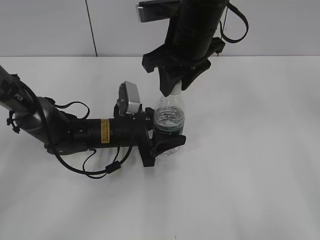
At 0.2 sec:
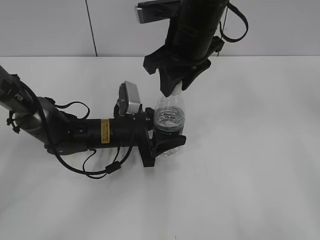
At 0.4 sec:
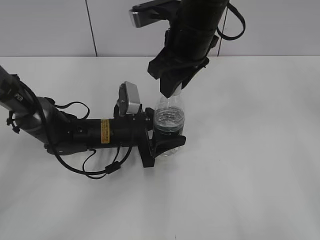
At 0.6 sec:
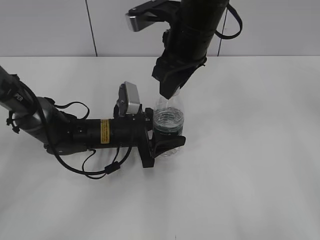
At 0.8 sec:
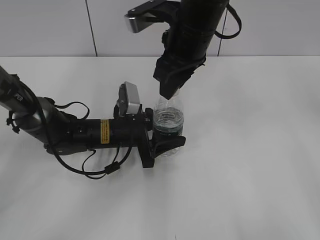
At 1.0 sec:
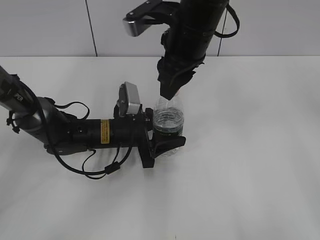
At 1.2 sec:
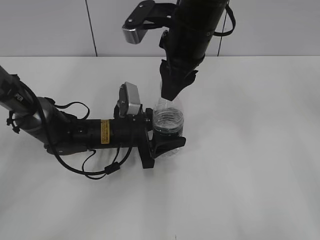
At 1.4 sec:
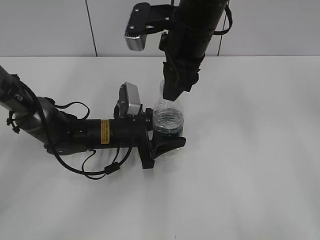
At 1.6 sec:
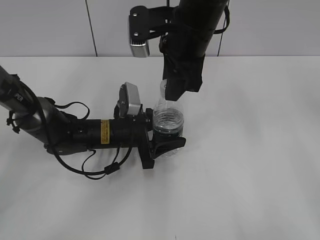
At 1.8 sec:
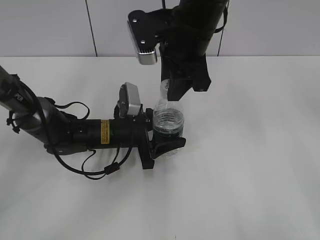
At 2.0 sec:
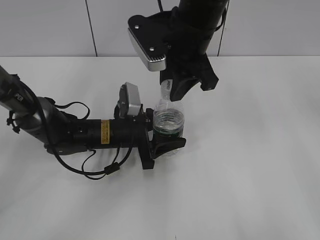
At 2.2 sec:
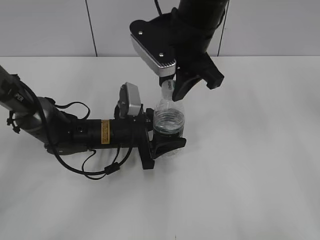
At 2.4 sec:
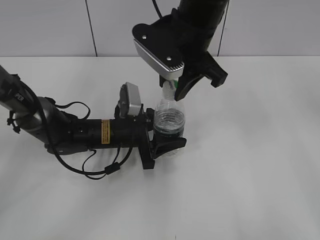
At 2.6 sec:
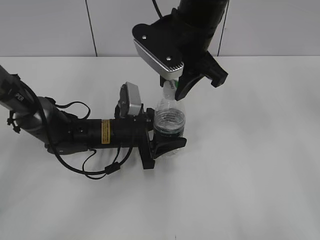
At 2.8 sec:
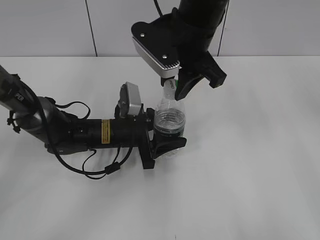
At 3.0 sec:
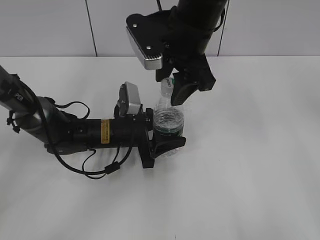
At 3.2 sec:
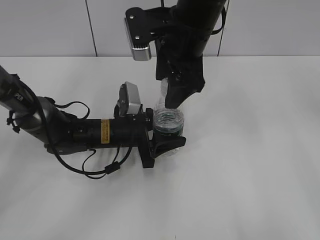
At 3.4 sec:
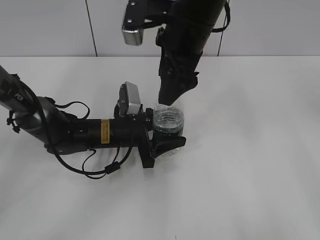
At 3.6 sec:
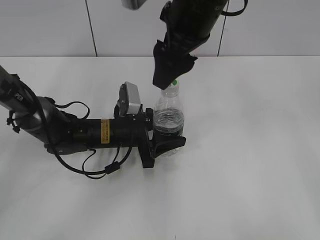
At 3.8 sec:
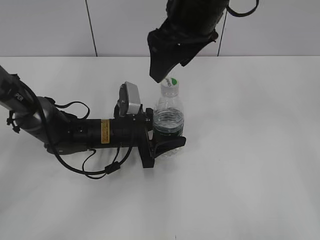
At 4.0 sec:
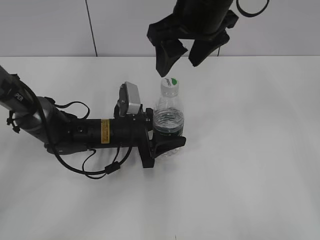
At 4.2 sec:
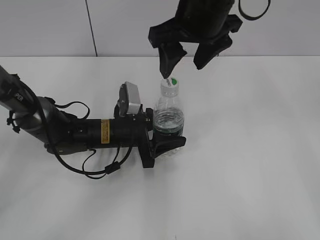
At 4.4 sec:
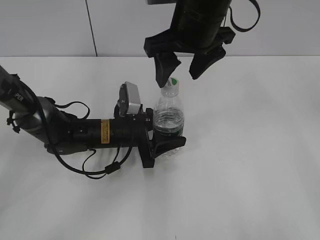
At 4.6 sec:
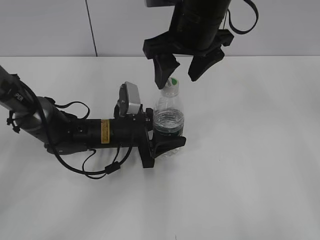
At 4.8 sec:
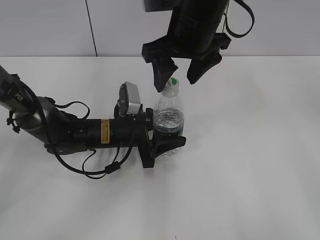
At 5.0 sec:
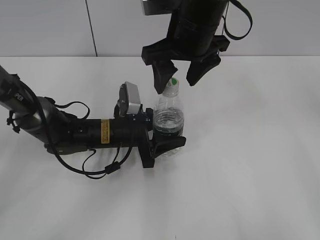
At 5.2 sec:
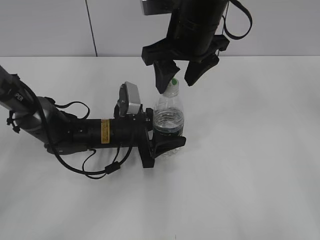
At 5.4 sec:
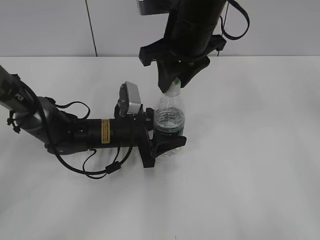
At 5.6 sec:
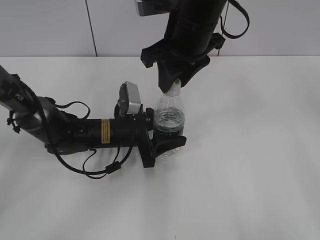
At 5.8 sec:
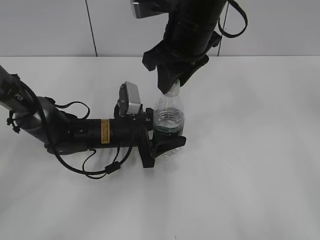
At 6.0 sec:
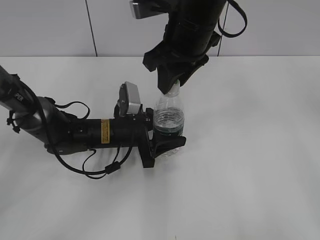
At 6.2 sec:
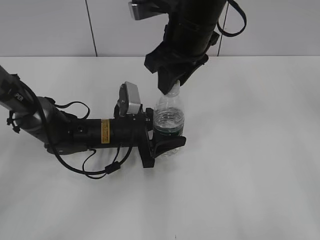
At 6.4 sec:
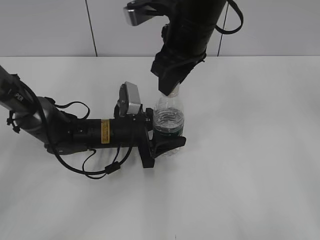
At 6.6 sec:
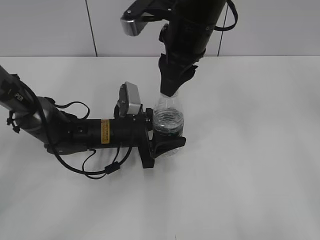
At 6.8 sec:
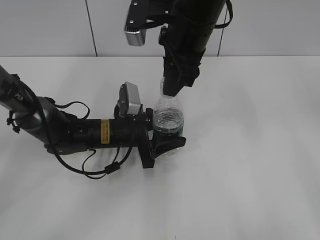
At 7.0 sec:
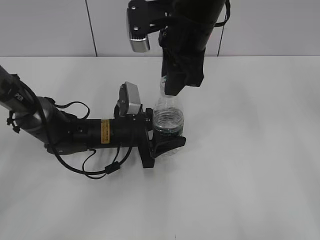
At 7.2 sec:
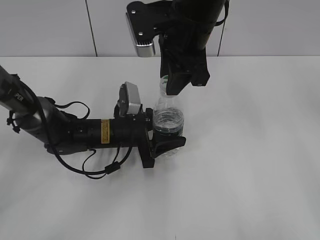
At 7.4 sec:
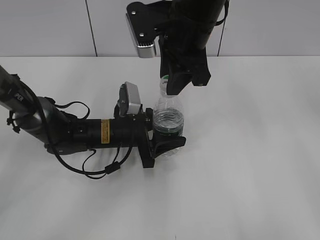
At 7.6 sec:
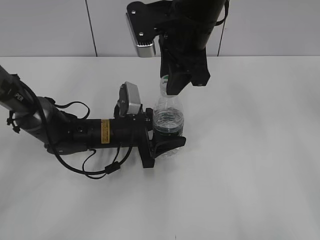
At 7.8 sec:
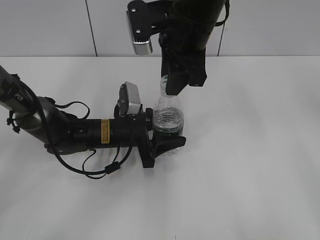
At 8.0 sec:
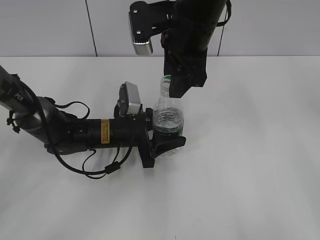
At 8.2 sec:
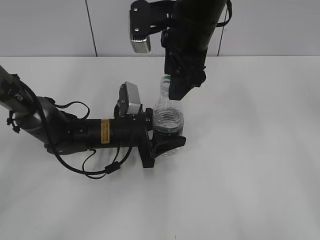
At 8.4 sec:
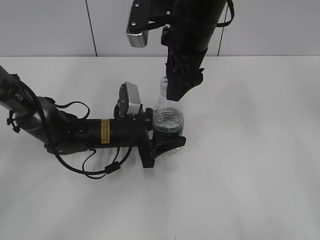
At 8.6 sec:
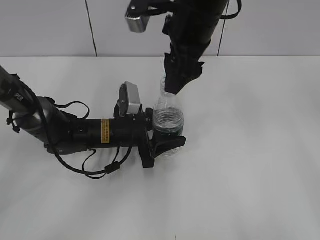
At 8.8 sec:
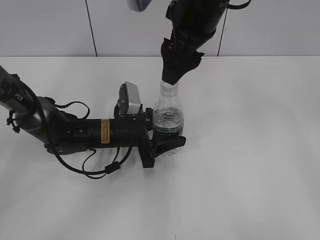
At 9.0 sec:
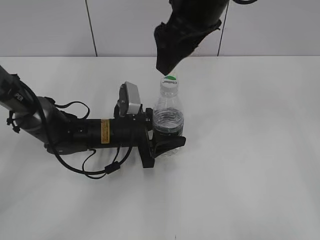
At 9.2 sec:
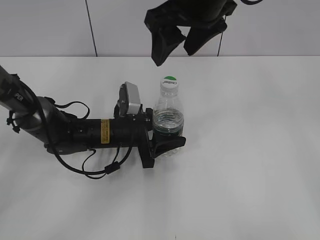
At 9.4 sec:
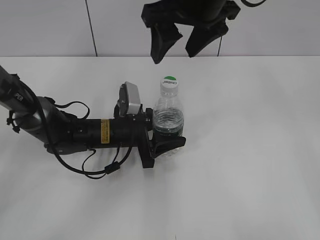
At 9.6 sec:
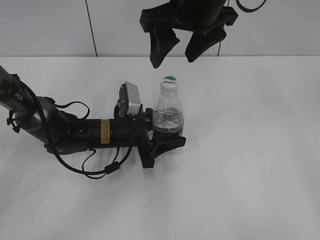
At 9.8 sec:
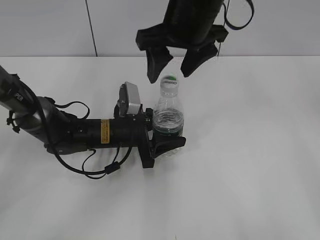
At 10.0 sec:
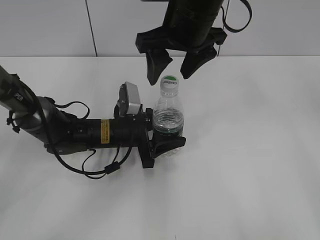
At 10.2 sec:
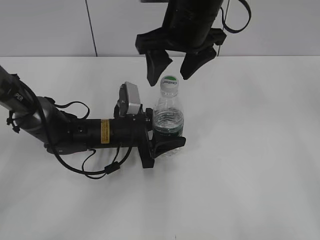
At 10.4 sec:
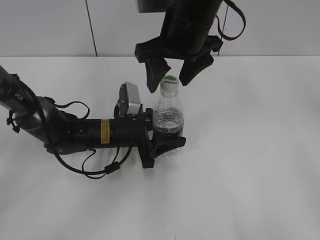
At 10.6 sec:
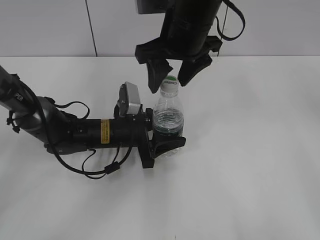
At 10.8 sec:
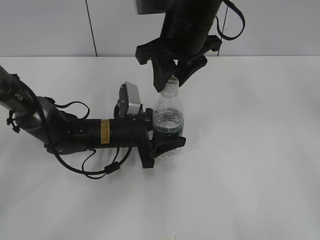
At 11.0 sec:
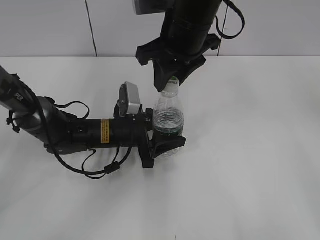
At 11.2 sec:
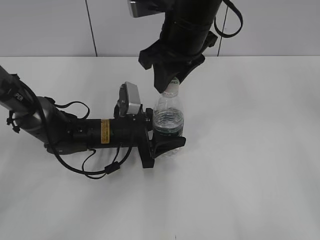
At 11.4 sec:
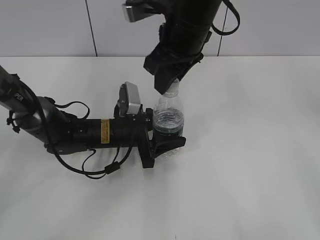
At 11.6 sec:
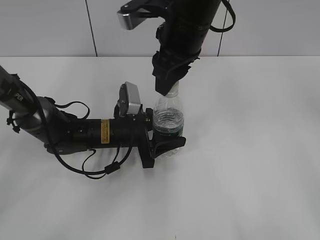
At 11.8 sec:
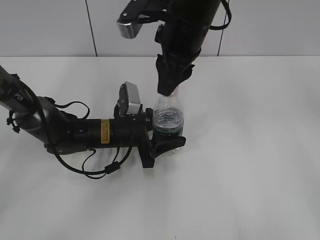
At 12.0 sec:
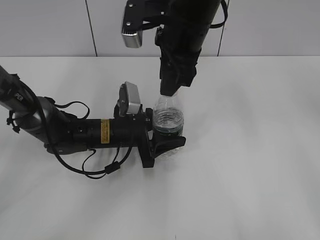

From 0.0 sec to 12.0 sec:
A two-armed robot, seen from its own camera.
From 1.6 sec to 3.0 sec: The right gripper opens.
From 4.4 sec to 6.0 sec: The right gripper closes its fingers.
From 7.6 sec to 9.0 sec: The right gripper opens up.
From 9.0 sec to 10.4 sec: The right gripper ends up roughly 5 cm from where it was.
From 10.4 sec to 12.0 sec: The right gripper closes.

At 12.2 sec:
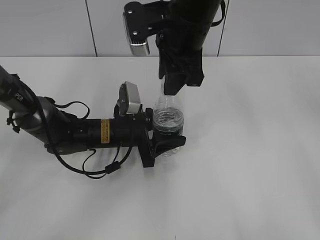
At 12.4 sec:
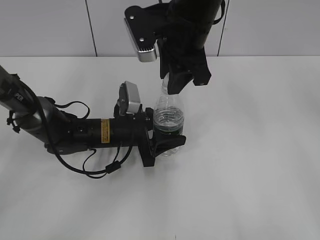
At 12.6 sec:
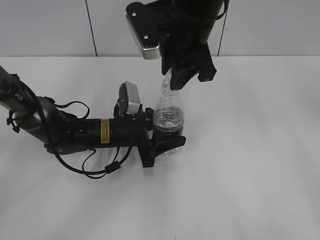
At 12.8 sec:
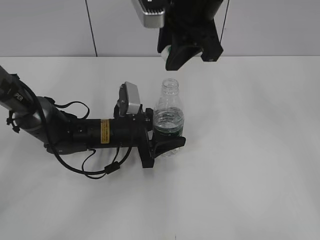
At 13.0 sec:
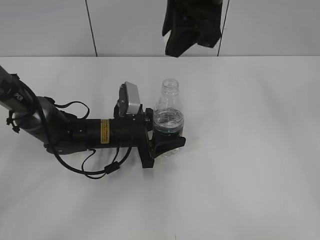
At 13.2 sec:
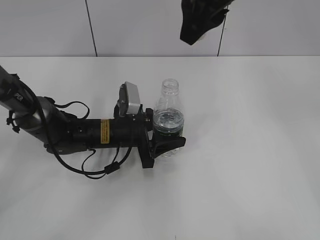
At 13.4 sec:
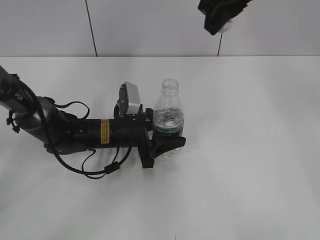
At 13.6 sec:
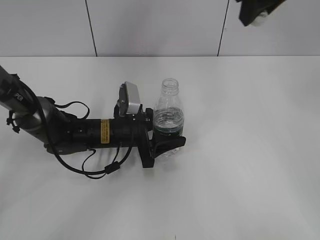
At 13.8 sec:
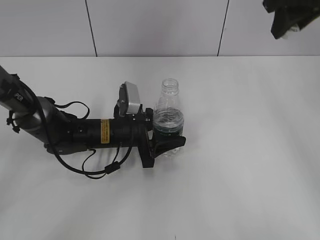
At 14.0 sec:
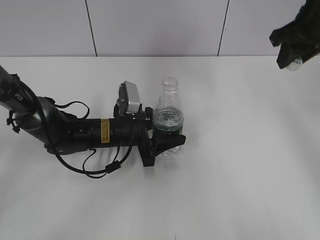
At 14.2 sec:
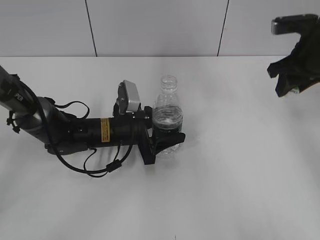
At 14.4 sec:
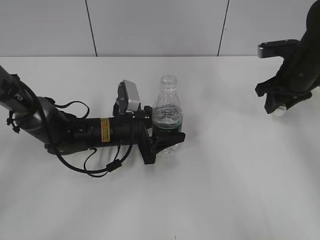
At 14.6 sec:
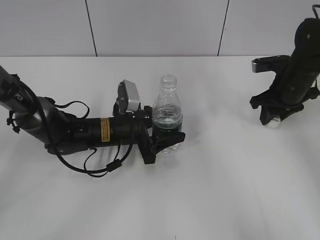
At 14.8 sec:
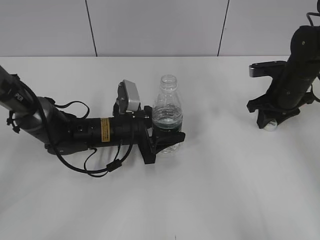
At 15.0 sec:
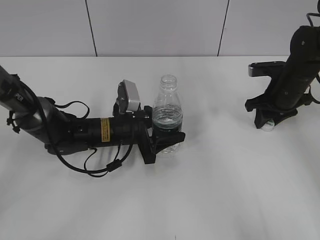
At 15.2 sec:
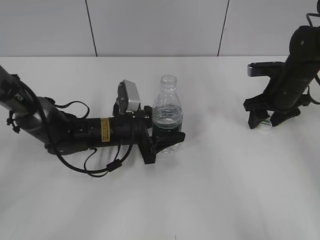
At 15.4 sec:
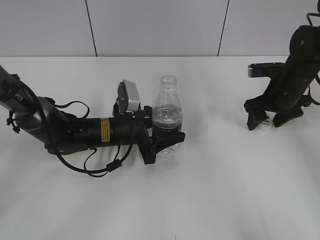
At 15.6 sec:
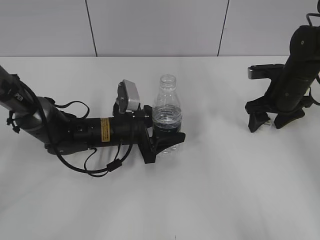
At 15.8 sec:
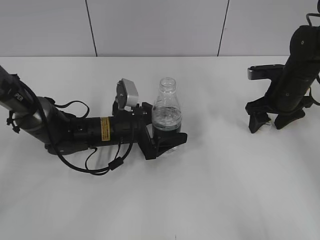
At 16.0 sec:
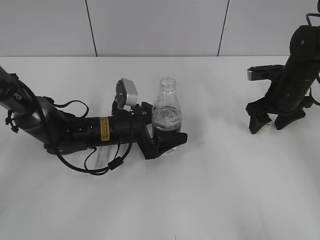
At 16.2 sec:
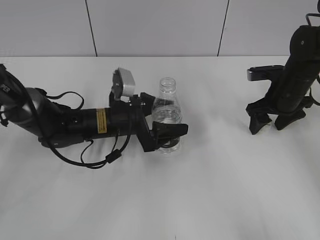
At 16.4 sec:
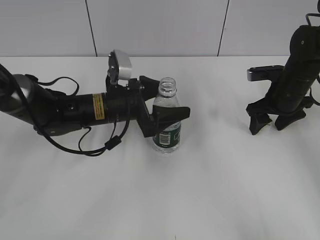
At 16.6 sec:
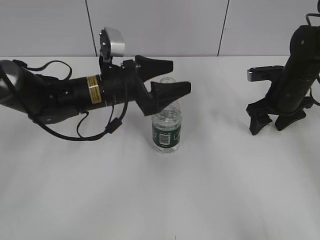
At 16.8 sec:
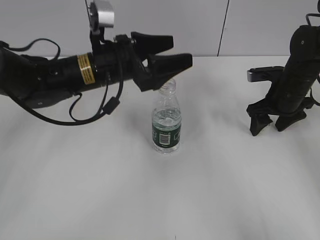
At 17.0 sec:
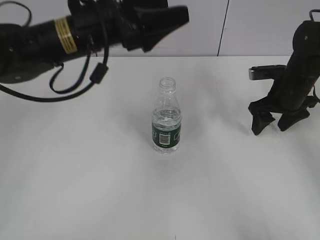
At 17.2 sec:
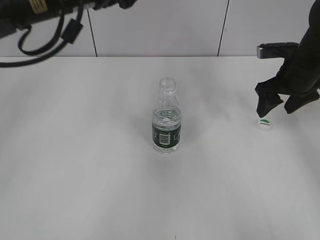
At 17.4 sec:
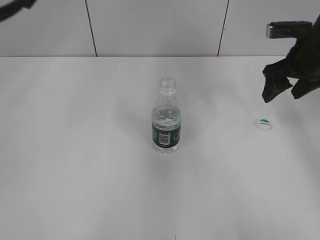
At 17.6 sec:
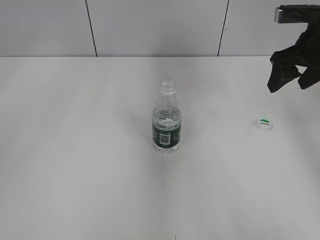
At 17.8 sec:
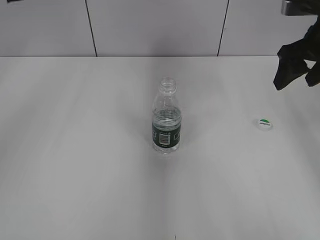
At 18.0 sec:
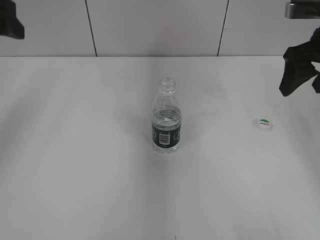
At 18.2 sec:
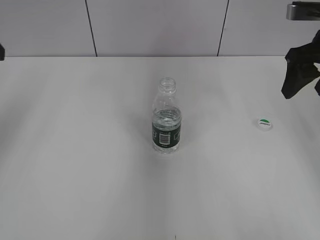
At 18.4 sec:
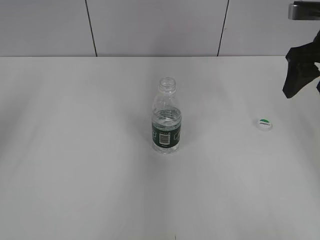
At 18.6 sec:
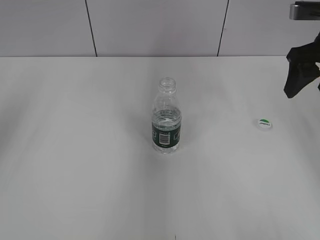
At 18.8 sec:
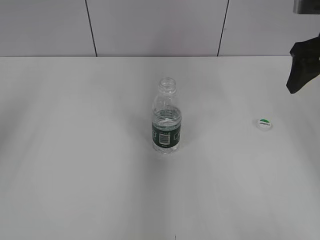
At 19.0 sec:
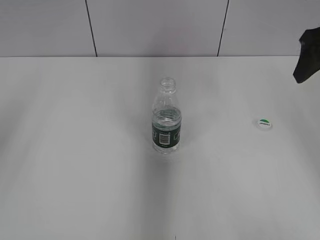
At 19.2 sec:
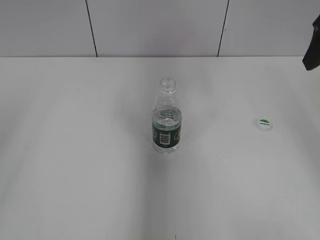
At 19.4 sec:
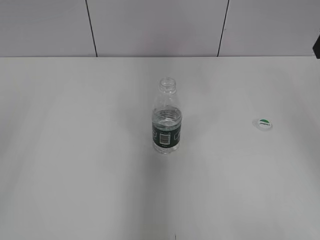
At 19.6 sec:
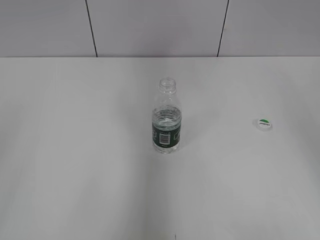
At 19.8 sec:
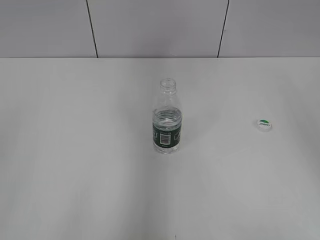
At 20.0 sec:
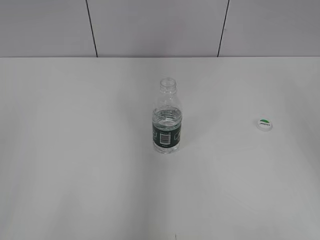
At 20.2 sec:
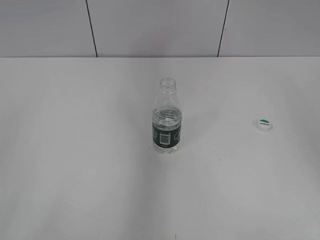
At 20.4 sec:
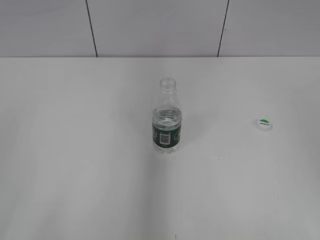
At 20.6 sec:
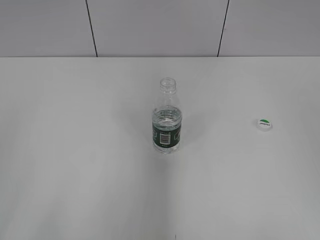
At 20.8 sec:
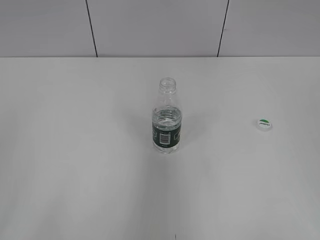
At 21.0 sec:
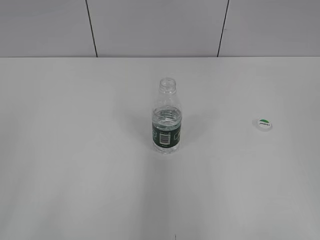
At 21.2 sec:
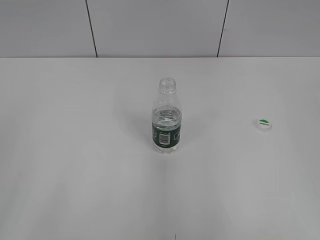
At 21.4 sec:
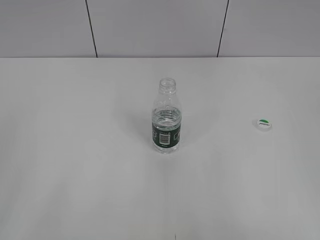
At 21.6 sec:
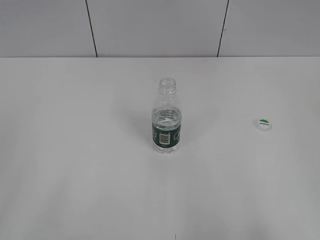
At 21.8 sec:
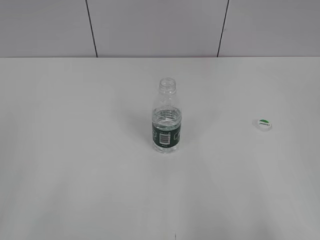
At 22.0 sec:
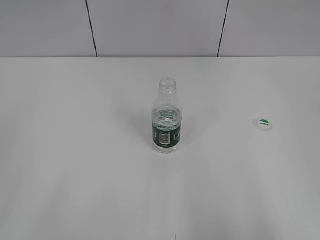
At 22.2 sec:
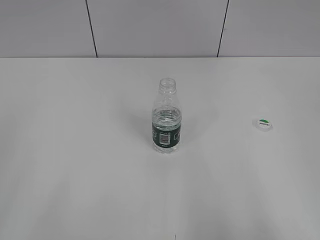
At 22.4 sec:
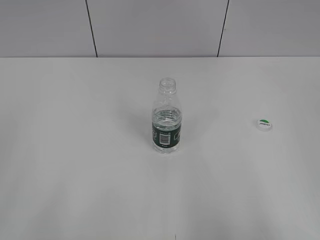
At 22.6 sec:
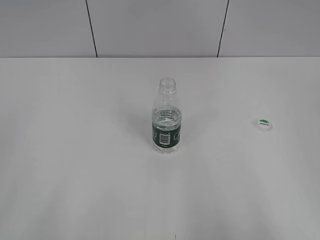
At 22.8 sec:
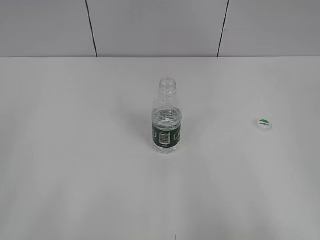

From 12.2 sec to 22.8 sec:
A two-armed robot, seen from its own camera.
Step, from 13.0 sec to 15.6 sec: Place the bottle cap on the table with the right gripper.
Step, from 15.8 sec to 16.2 sec: Place the bottle on the table with the left gripper.
From 12.2 sec to 13.8 sec: The right gripper travels to the right by about 15 cm.
From 13.8 sec to 15.2 sec: The right gripper moves downward, some 25 cm, and opens its fingers.
From 15.2 sec to 16.8 sec: The right gripper opens up. Meanwhile the left gripper moves upward, some 15 cm, and opens its fingers.
From 16.8 sec to 18.2 sec: The left gripper shifts roughly 25 cm to the left and upward. The right gripper moves upward, approximately 15 cm.
From 18.2 sec to 19.8 sec: The right gripper moves upward and backward, some 15 cm.
